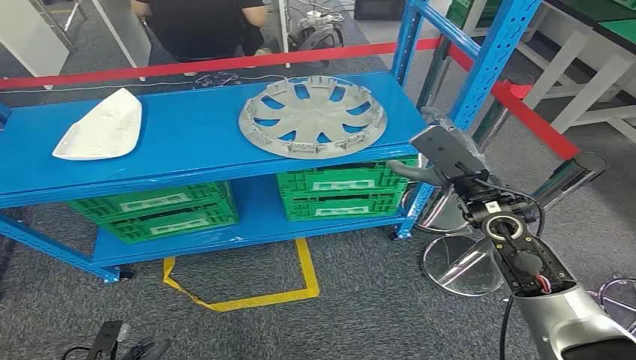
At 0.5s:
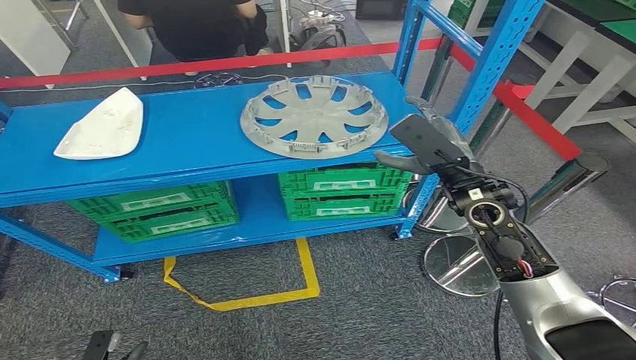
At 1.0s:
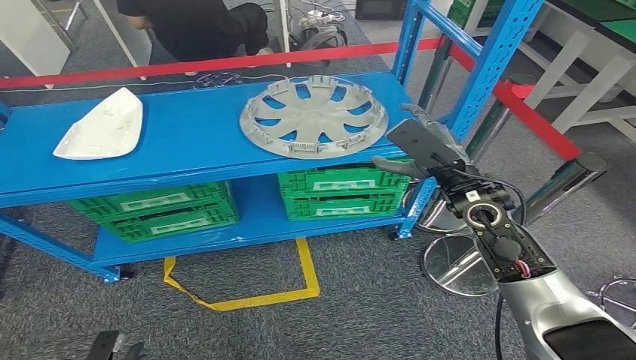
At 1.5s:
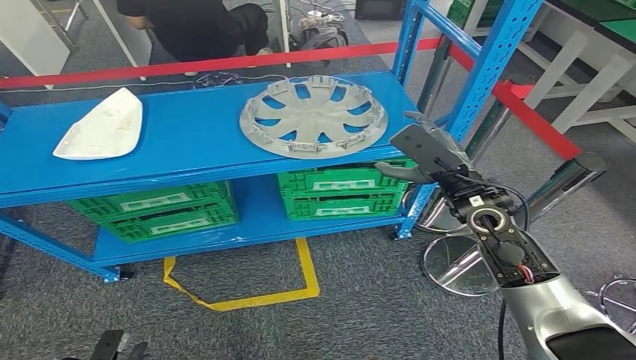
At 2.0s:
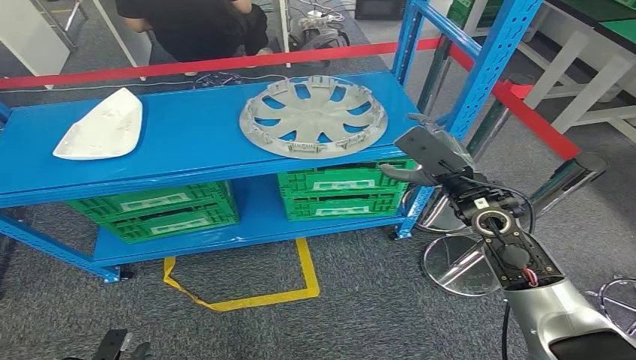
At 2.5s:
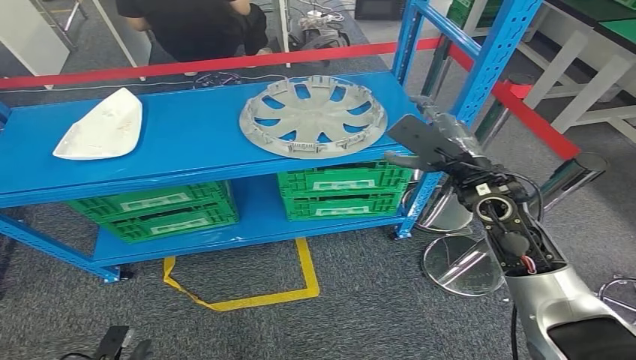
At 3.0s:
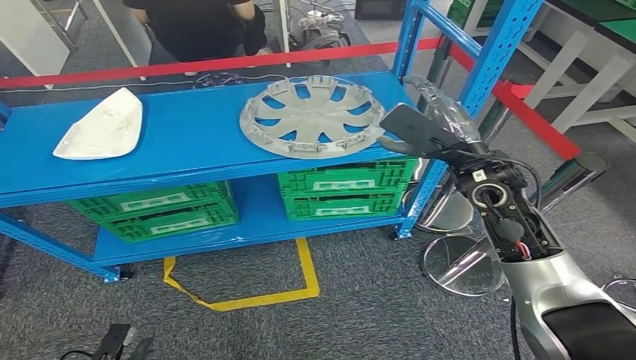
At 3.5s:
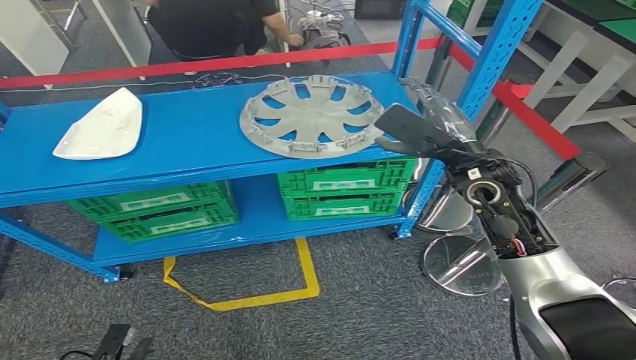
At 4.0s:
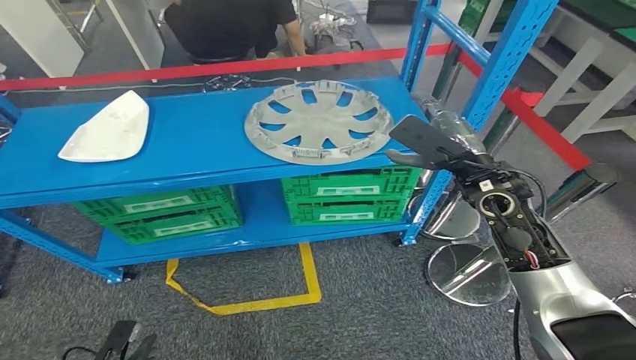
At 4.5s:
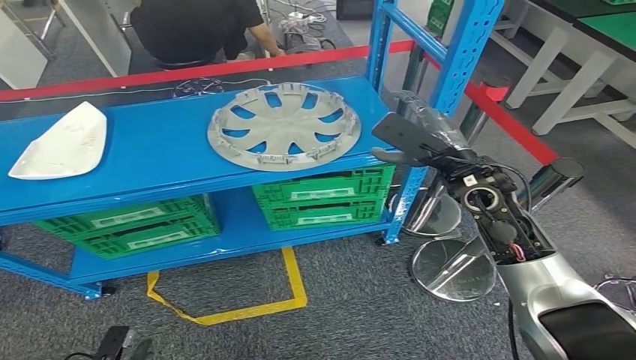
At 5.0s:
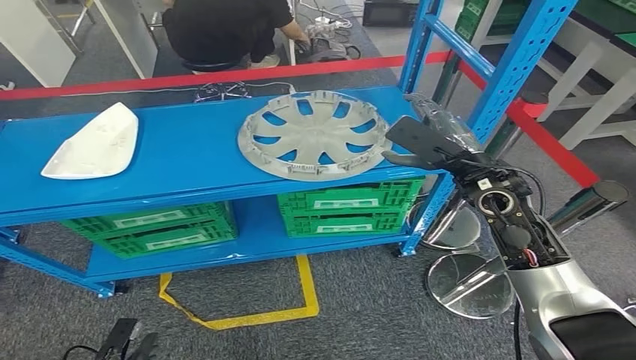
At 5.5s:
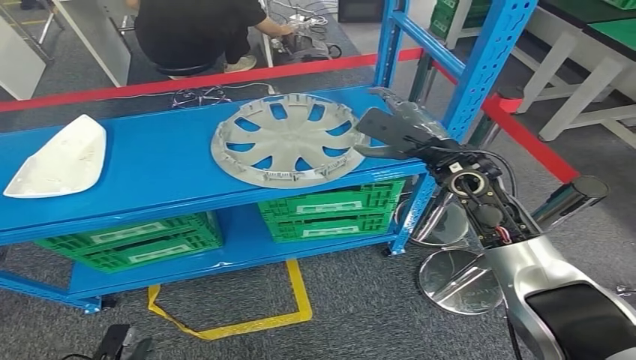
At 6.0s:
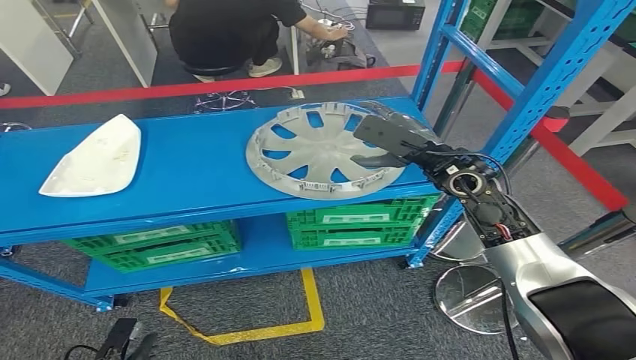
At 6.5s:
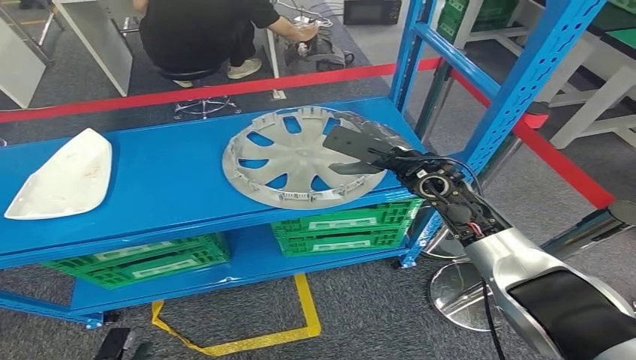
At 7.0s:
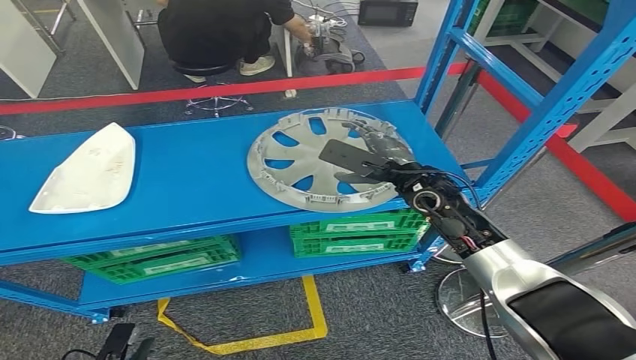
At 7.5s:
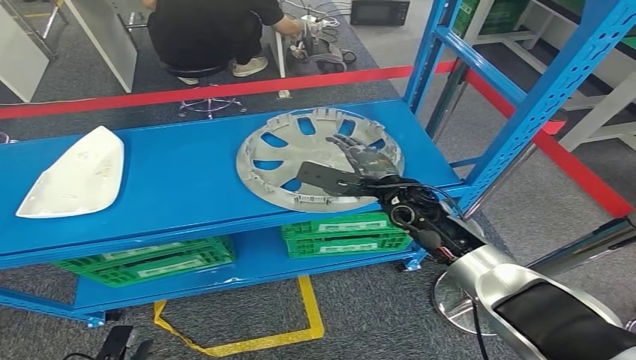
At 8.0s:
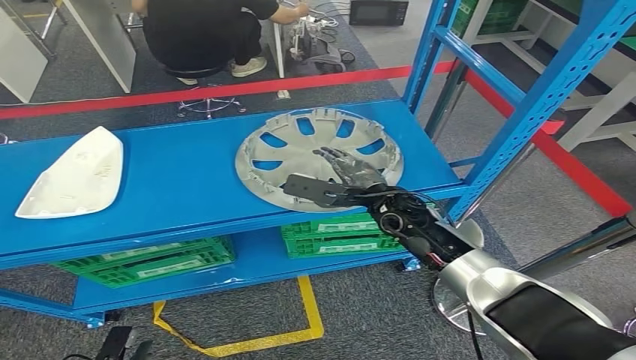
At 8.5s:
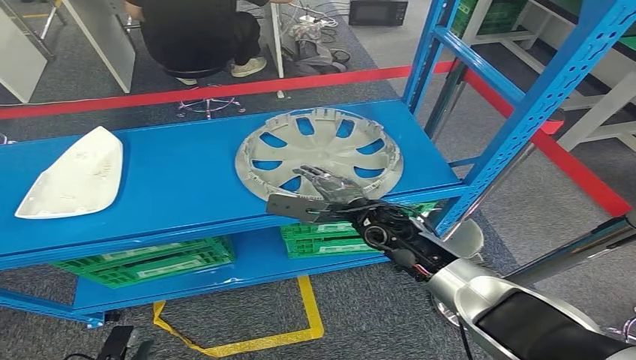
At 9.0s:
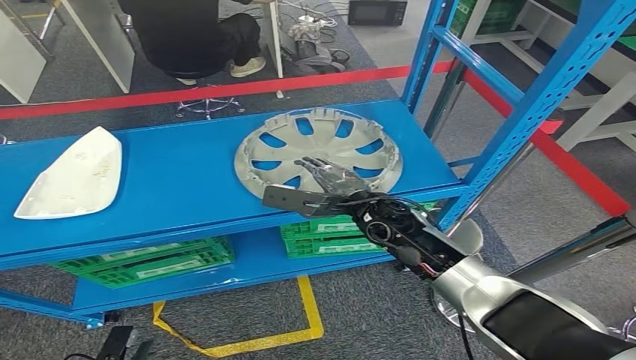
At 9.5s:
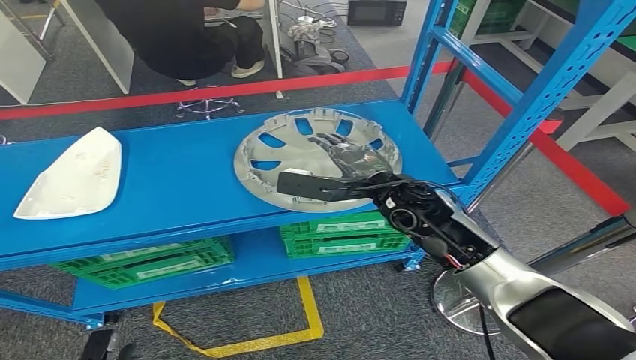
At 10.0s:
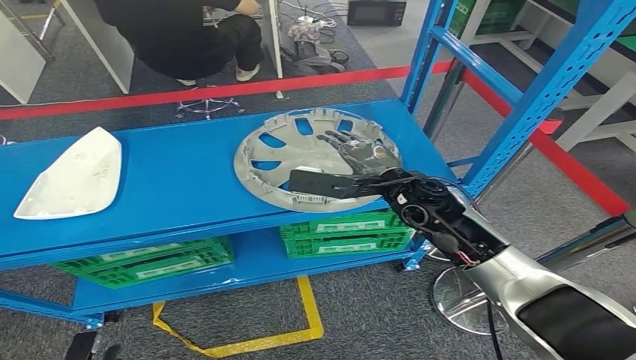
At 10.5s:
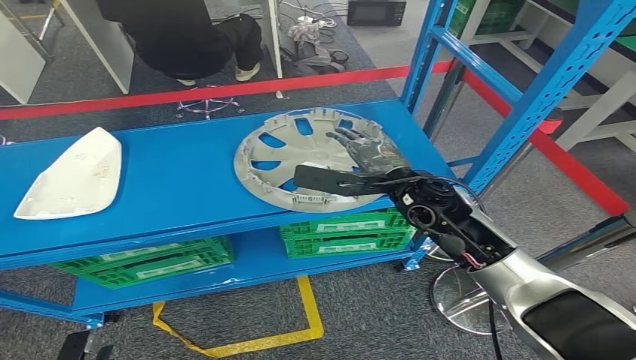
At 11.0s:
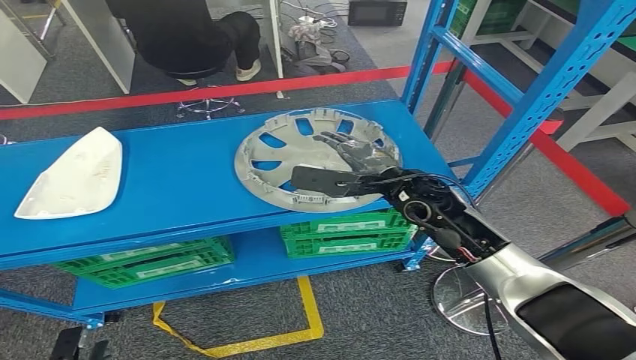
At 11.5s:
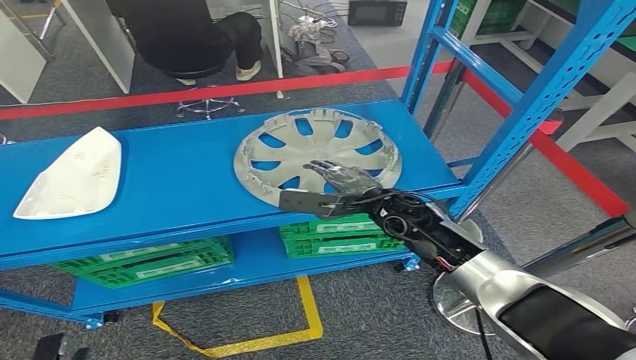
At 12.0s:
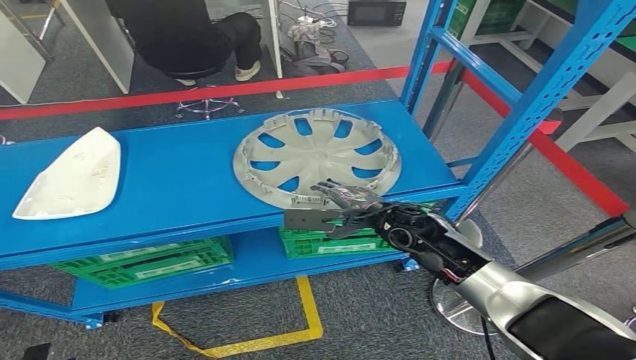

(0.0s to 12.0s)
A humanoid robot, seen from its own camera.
8.0s - 10.0s: The right hand heads upward, covering approximately 5 cm.
10.0s - 12.0s: The left hand is displaced to the left by about 5 cm; the right hand moves downward, roughly 5 cm.

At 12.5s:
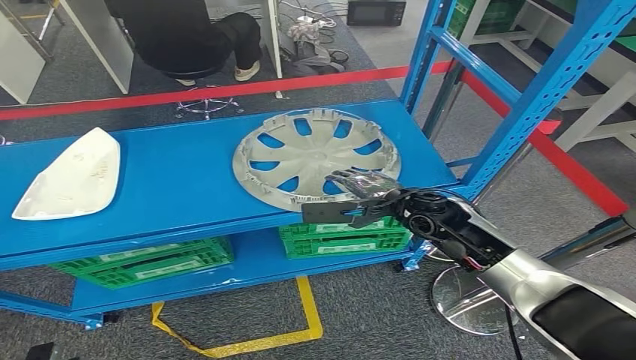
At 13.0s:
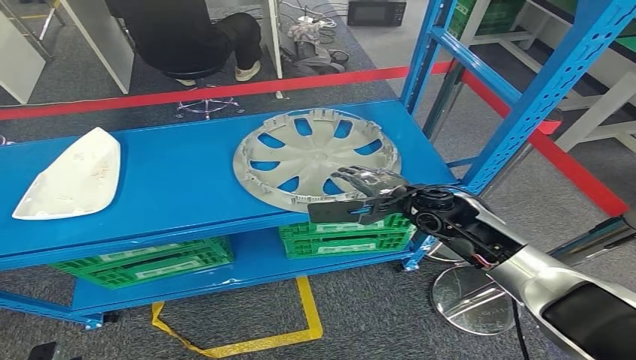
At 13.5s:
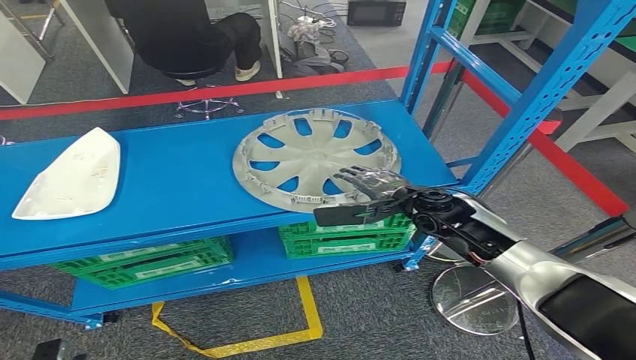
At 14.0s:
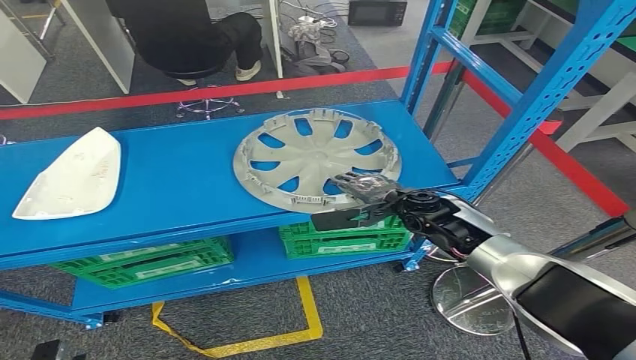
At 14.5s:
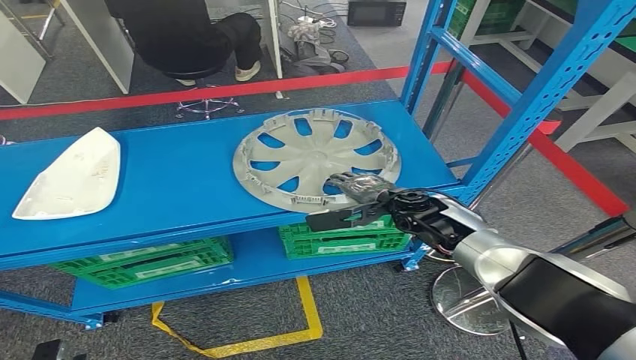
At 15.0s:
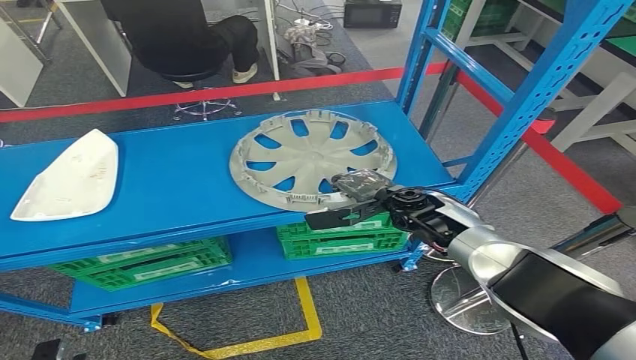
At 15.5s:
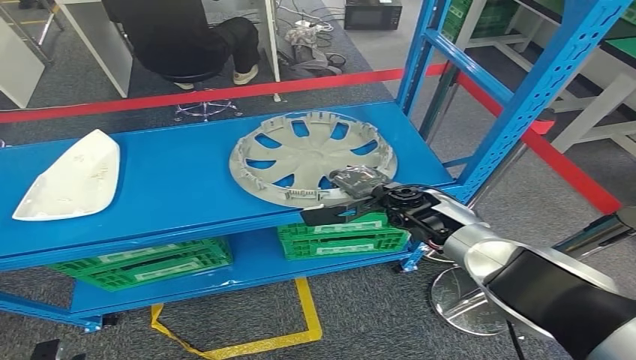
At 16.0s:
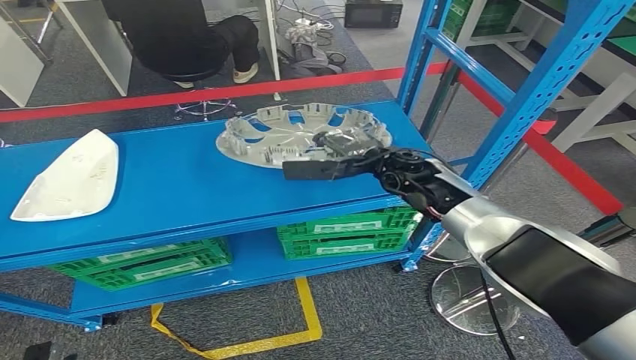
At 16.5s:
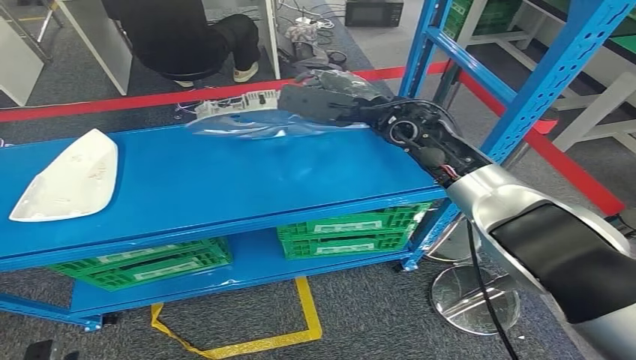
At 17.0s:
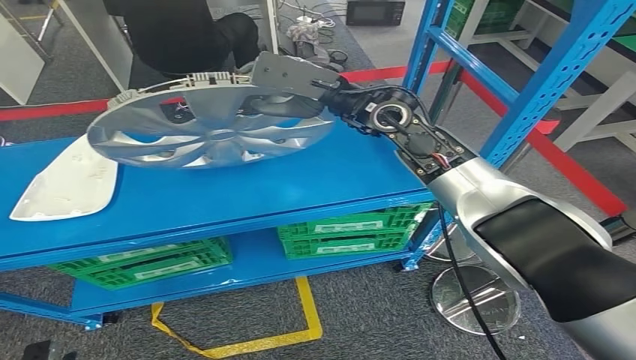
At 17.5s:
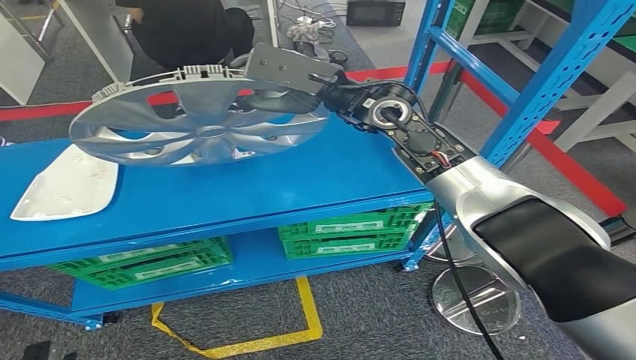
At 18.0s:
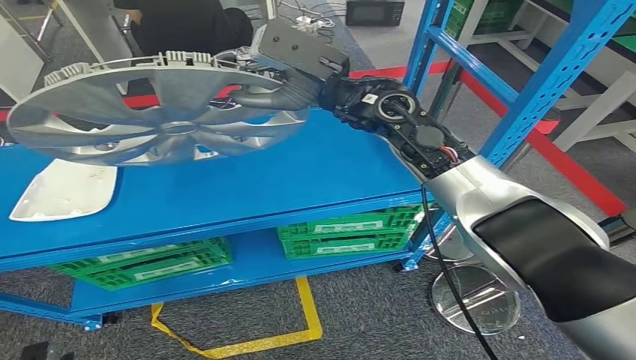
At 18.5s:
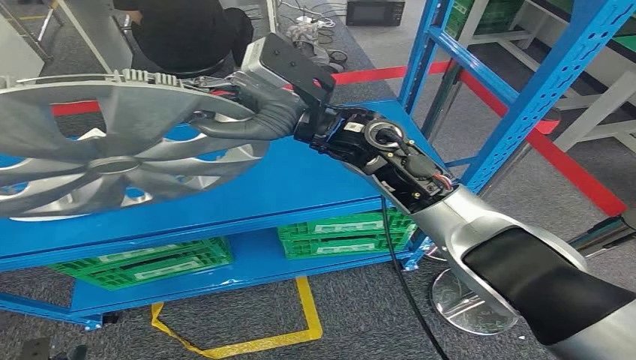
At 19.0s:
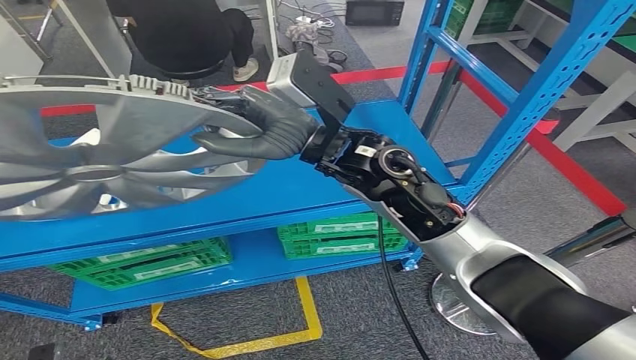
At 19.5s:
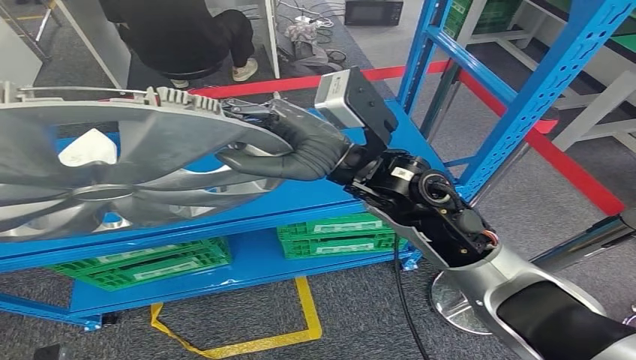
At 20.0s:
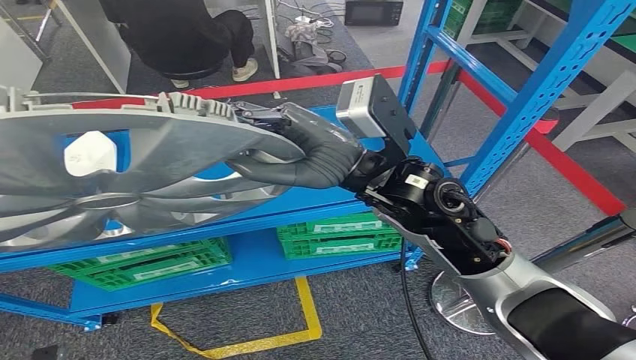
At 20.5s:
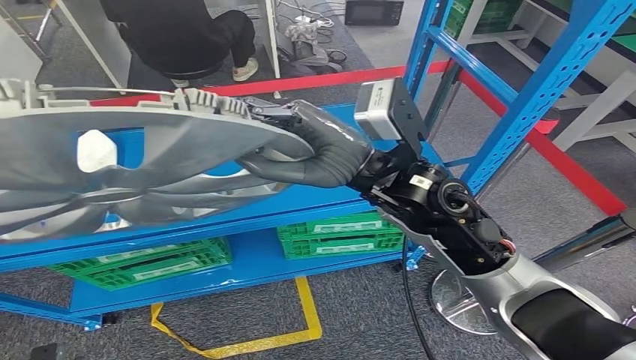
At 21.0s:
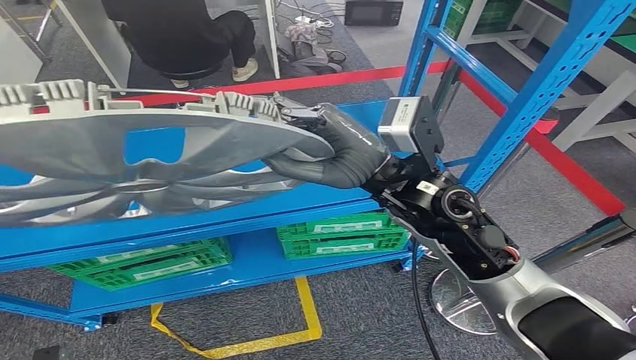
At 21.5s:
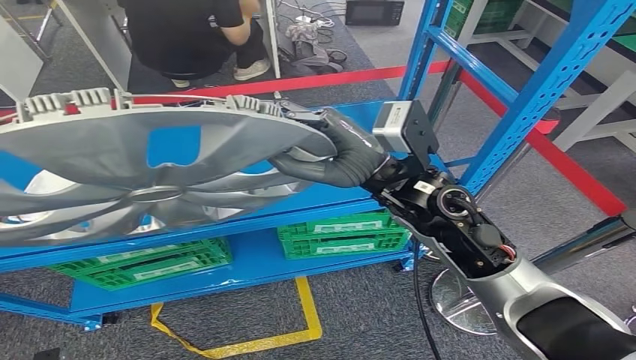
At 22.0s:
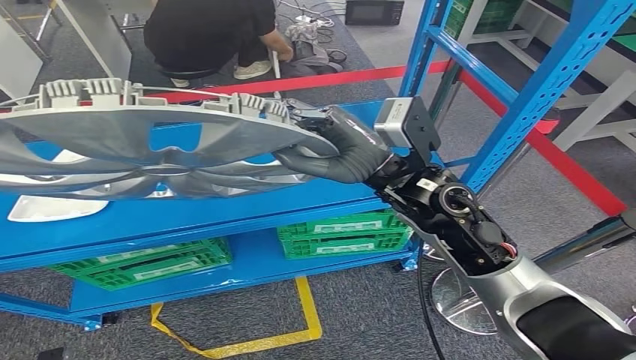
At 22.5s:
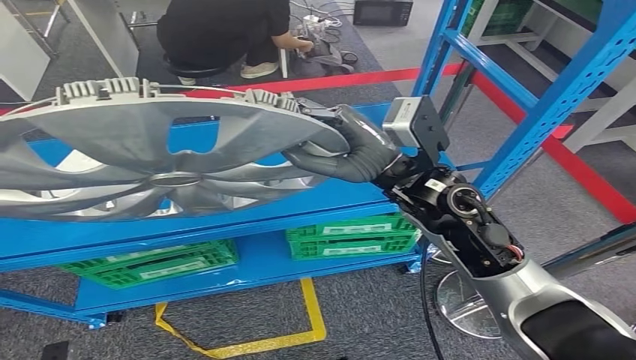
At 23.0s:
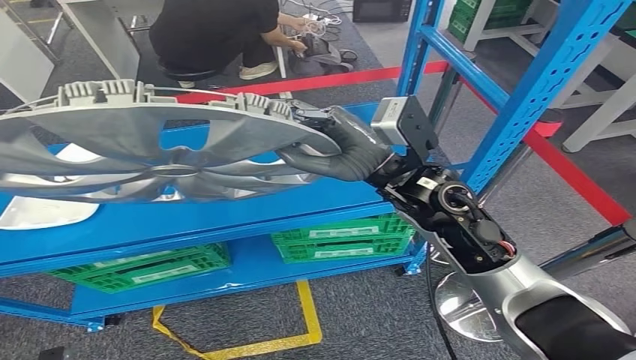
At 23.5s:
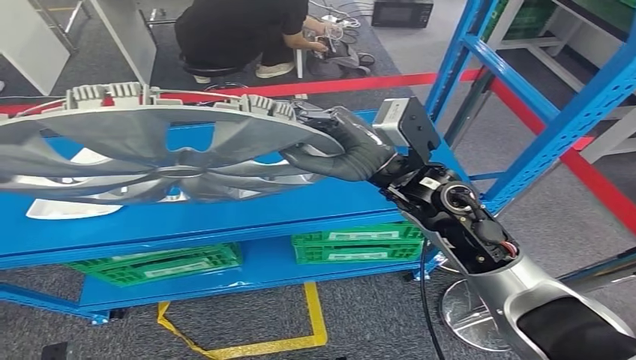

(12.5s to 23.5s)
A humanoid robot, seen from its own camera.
Step, 12.5s - 18.0s: Pick up the small component from the shelf.
12.5s - 14.5s: The right hand changes place by roughly 5 cm.
